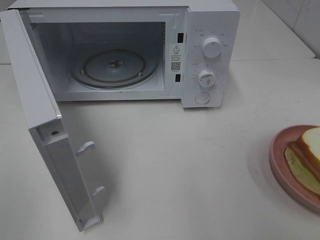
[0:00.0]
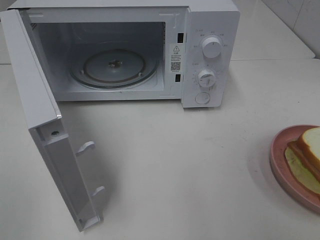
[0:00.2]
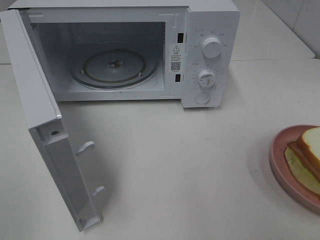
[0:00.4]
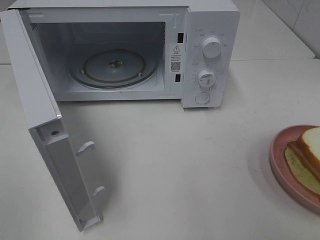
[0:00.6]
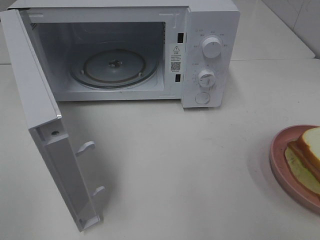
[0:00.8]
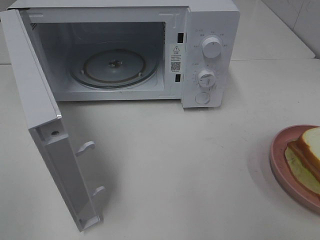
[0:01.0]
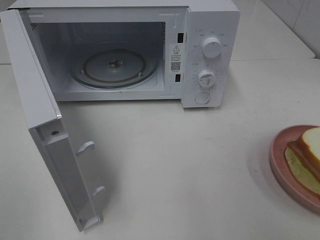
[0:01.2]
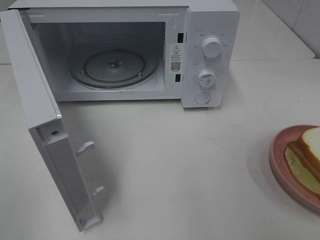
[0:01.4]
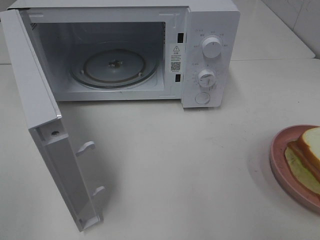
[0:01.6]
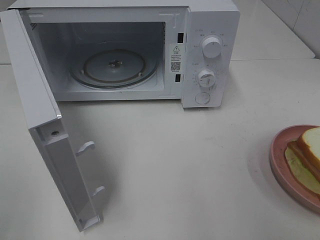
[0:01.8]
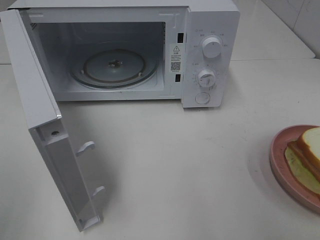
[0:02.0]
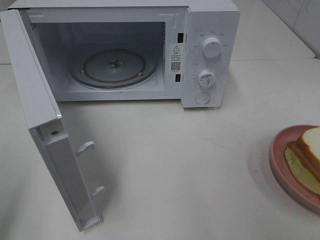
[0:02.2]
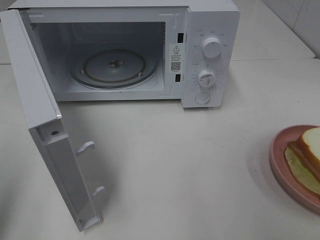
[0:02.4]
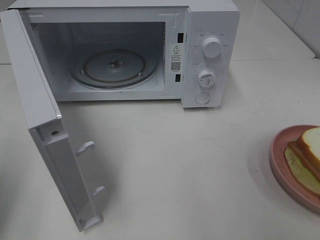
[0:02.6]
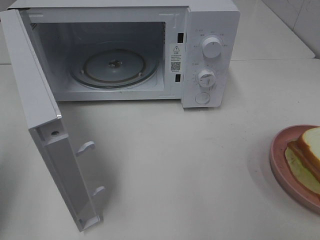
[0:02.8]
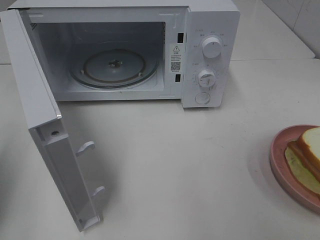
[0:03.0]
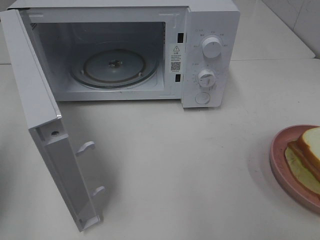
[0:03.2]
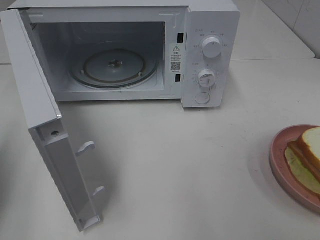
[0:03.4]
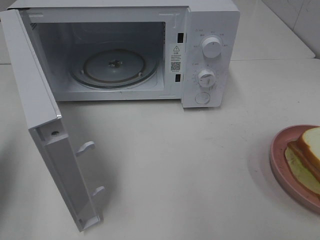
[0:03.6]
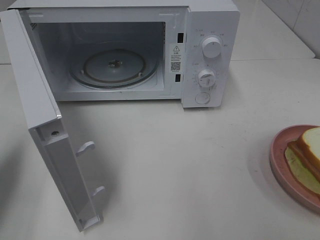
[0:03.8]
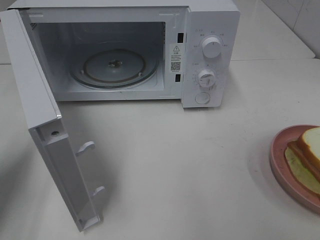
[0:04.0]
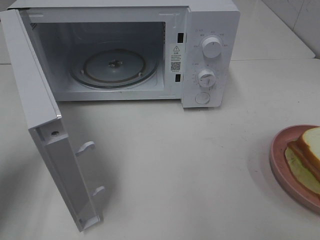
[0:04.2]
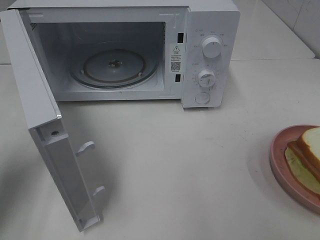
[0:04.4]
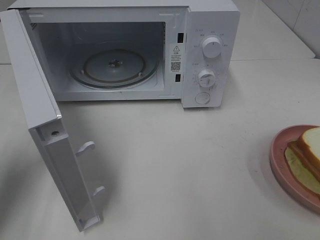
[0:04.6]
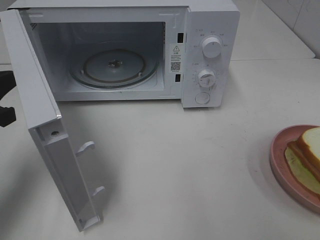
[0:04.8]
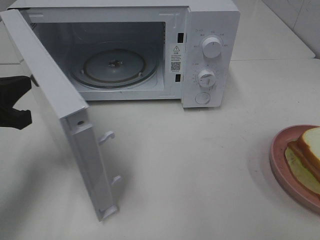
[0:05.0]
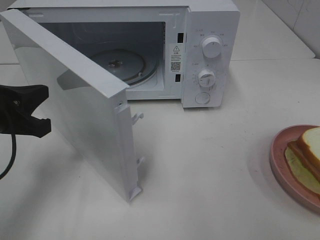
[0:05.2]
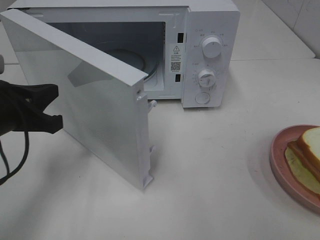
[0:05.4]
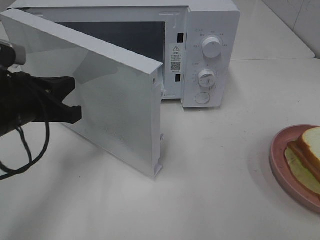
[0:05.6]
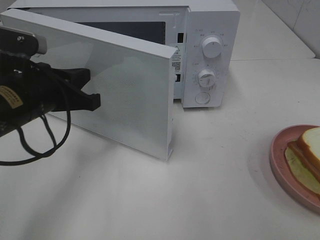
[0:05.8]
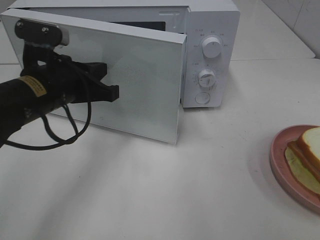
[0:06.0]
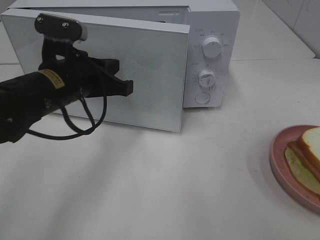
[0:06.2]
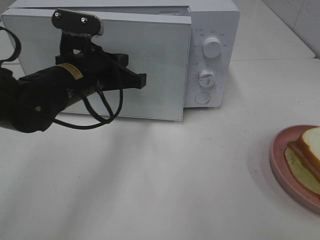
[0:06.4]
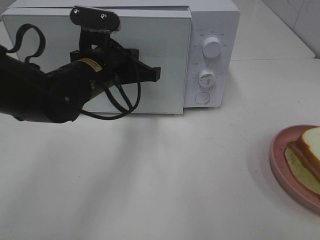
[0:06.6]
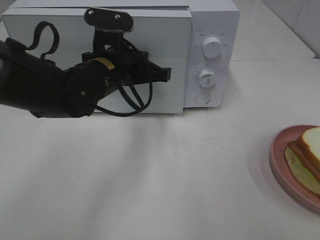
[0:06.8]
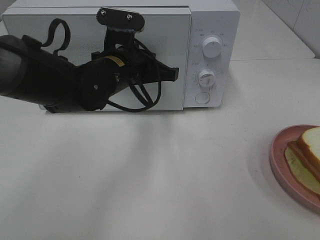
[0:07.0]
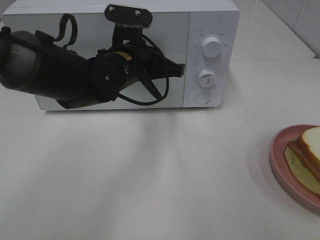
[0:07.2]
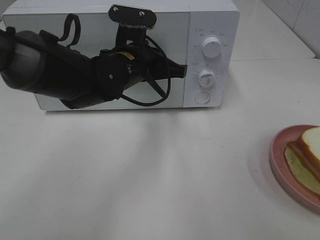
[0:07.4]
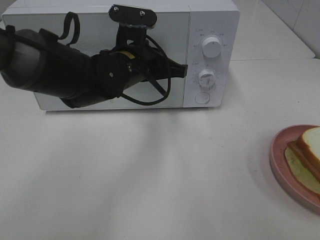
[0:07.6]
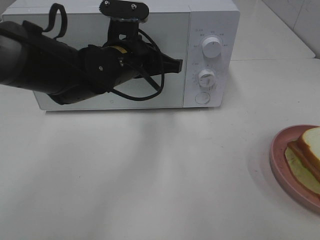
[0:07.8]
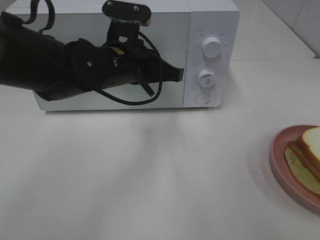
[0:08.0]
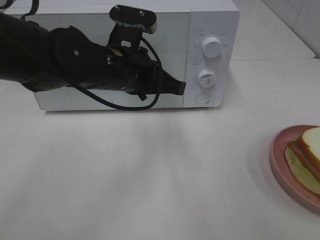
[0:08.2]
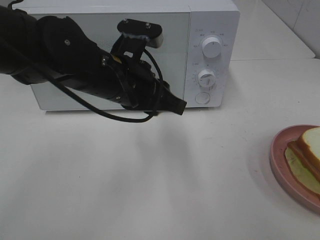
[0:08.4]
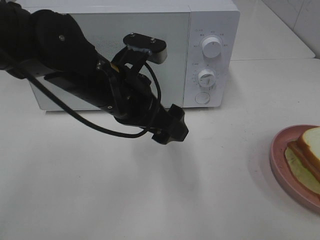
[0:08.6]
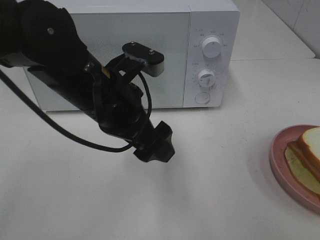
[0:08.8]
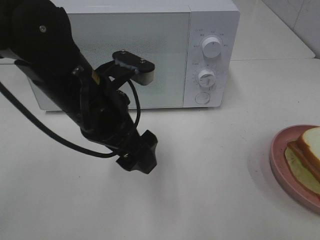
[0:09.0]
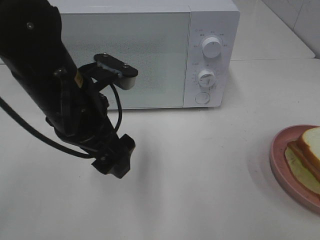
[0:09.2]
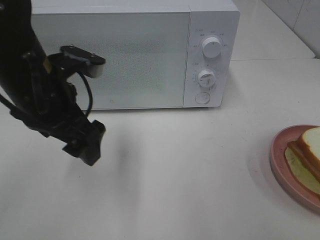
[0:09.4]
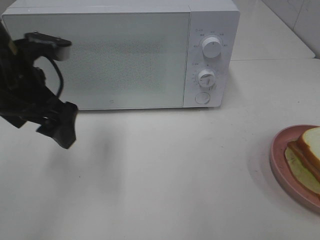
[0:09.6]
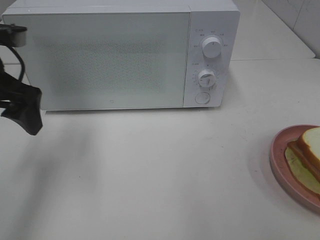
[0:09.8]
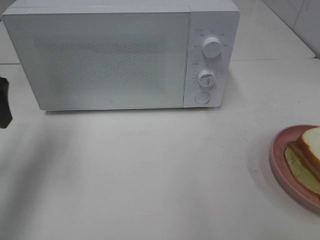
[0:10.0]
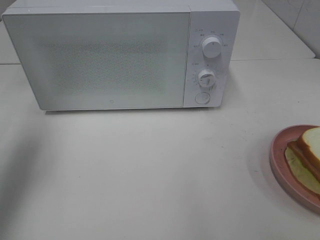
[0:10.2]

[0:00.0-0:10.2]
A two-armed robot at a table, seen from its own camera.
Task of the whole recording: Heat Sandwich.
Step, 0:00.0 to 0:07.8: Left hand: close the microwave door.
0:00.0 to 0:01.4: Neither gripper changes place.
0:01.4 to 0:03.0: The left gripper goes approximately 15 cm forward, and closes up.
0:03.0 to 0:04.4: The left gripper travels downward and forward by roughly 10 cm.
0:04.4 to 0:05.8: The left gripper goes some 15 cm to the right.
0:05.8 to 0:07.2: The left gripper goes some 15 cm to the right and forward.
0:07.2 to 0:08.8: The left gripper shifts roughly 10 cm backward, and opens up.
0:08.8 to 0:10.2: The left gripper shifts some 25 cm to the left.

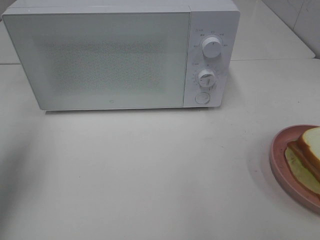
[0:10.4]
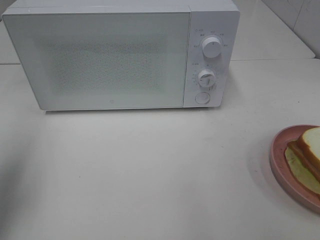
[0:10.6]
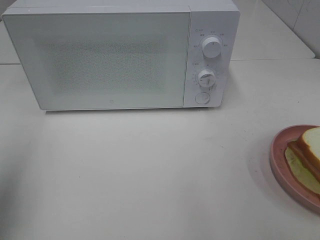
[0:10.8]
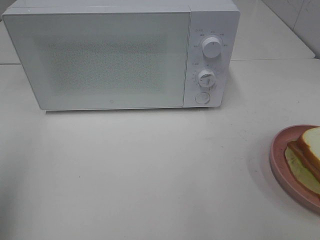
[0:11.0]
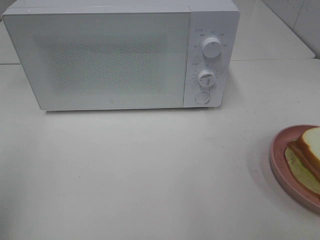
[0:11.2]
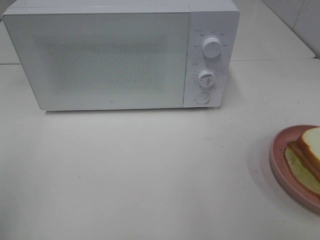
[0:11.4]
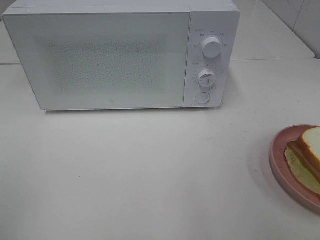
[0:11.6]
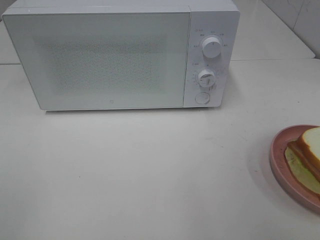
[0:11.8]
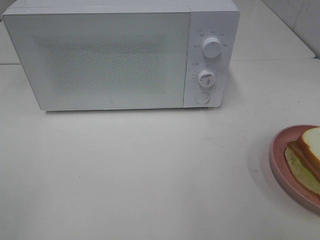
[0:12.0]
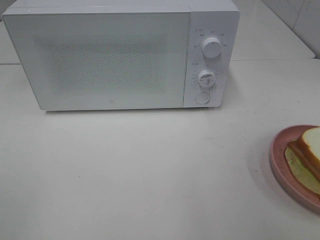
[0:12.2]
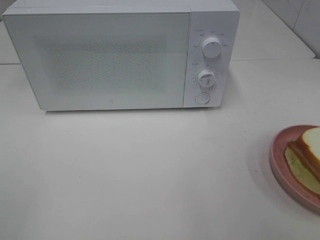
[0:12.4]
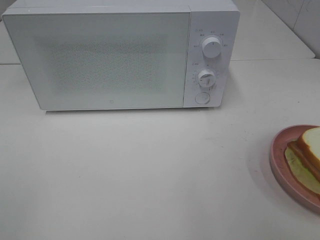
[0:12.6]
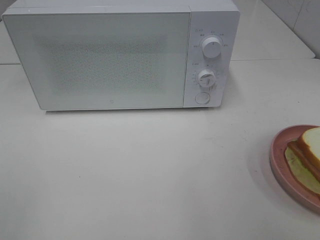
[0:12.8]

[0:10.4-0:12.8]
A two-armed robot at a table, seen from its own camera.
Task of the whole recording: Heat Sandwich.
0:10.4 to 0:11.6: The left gripper shifts about 20 cm backward.

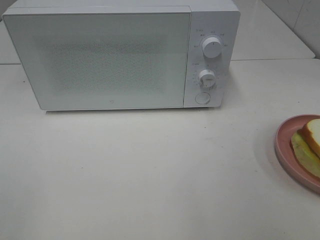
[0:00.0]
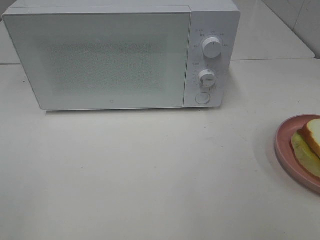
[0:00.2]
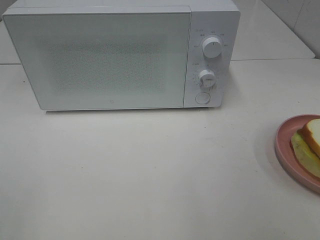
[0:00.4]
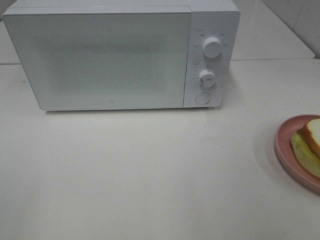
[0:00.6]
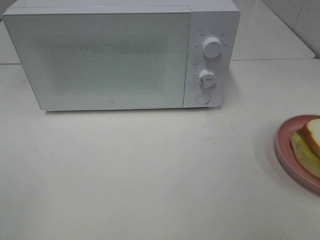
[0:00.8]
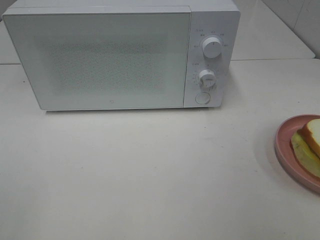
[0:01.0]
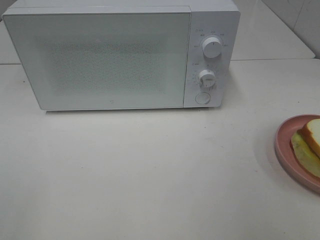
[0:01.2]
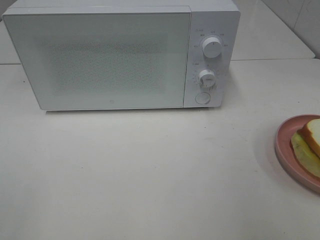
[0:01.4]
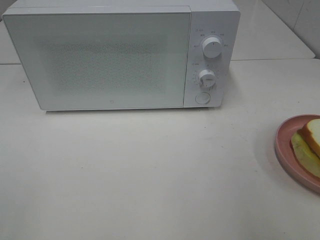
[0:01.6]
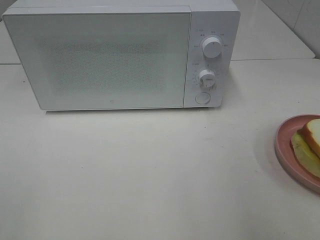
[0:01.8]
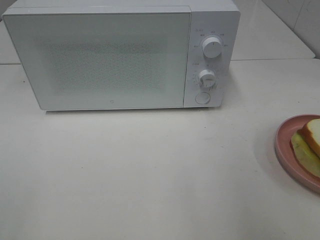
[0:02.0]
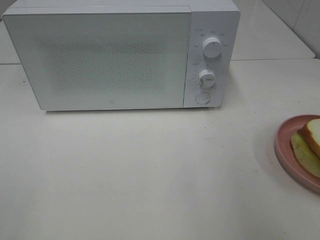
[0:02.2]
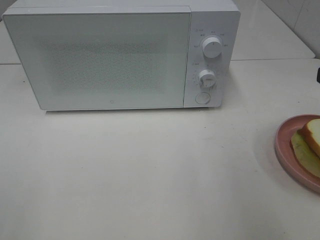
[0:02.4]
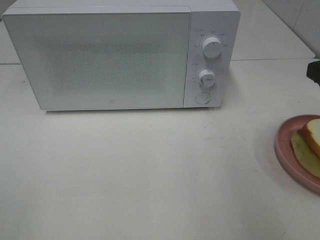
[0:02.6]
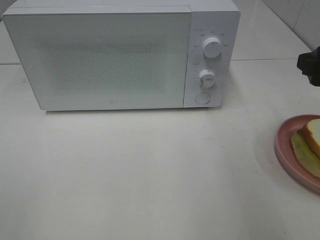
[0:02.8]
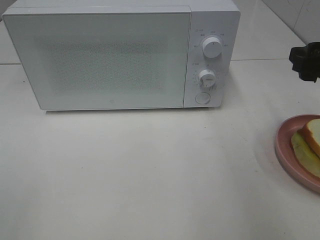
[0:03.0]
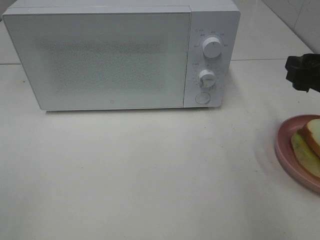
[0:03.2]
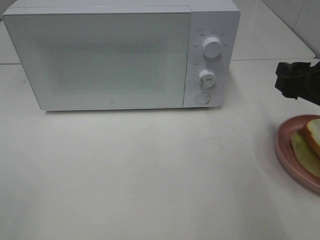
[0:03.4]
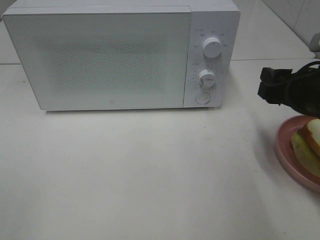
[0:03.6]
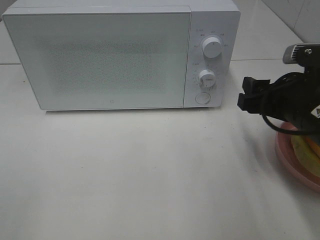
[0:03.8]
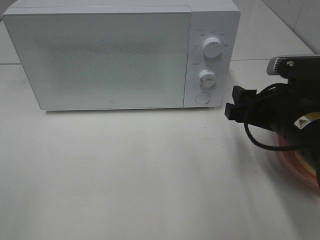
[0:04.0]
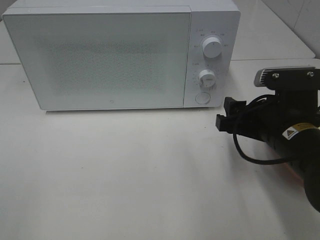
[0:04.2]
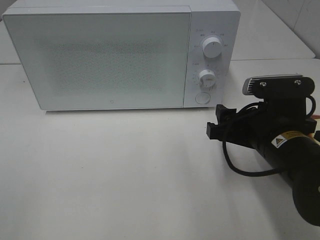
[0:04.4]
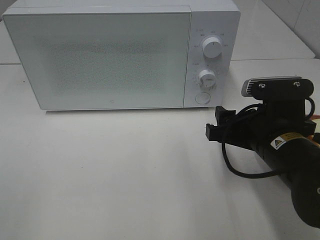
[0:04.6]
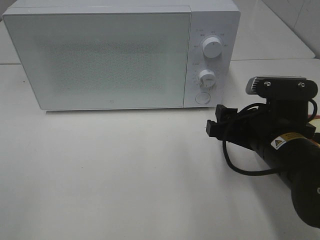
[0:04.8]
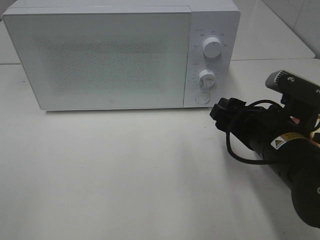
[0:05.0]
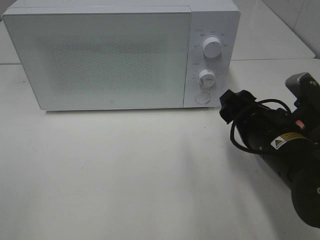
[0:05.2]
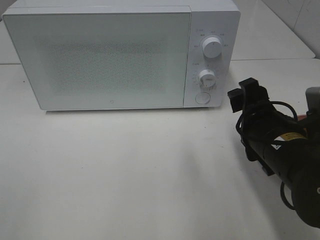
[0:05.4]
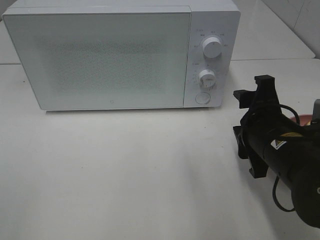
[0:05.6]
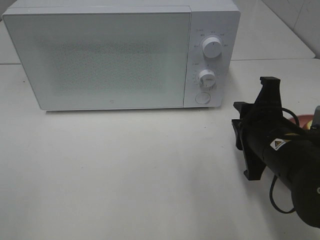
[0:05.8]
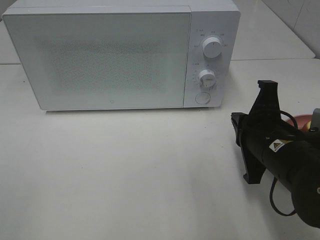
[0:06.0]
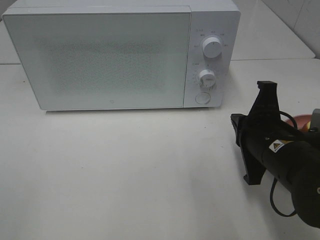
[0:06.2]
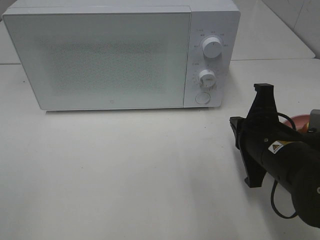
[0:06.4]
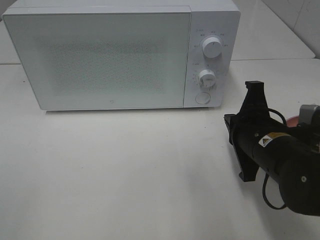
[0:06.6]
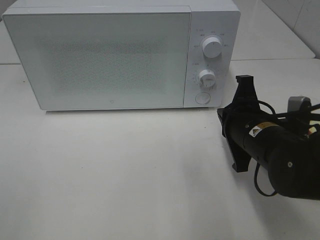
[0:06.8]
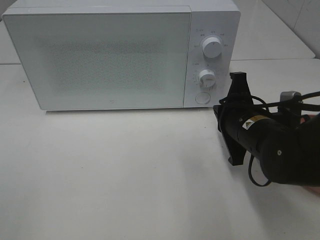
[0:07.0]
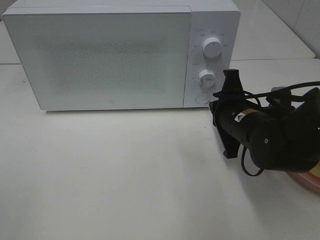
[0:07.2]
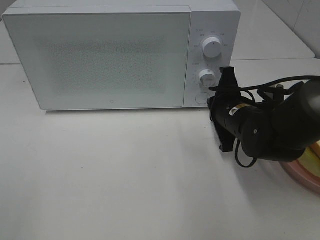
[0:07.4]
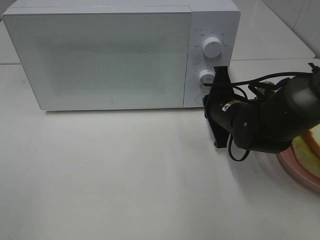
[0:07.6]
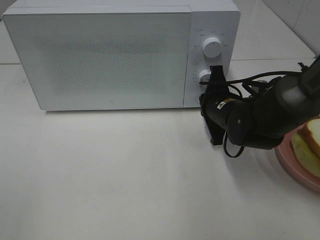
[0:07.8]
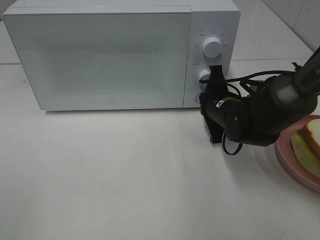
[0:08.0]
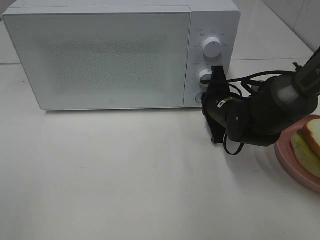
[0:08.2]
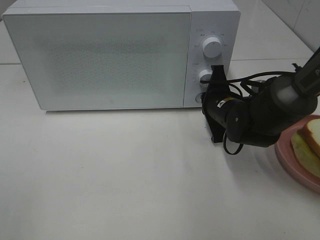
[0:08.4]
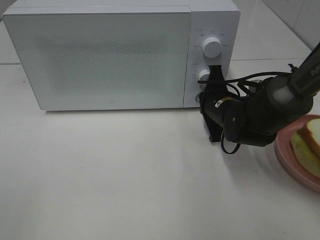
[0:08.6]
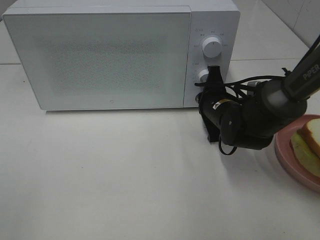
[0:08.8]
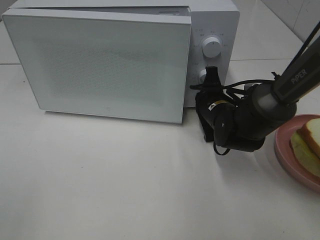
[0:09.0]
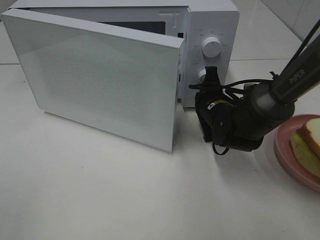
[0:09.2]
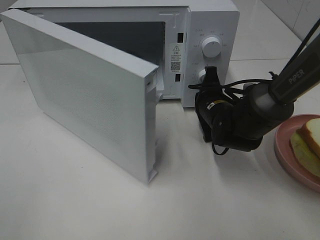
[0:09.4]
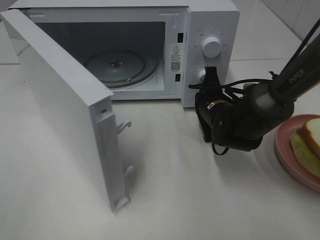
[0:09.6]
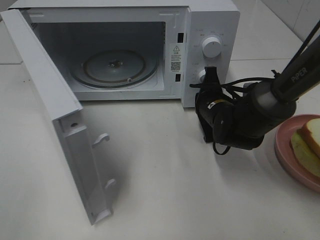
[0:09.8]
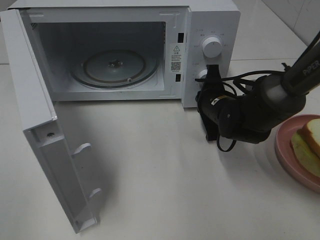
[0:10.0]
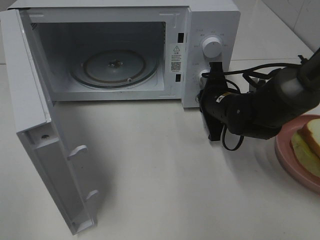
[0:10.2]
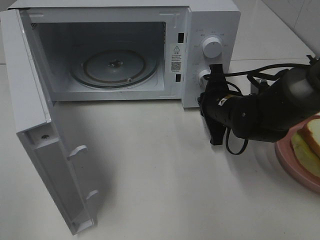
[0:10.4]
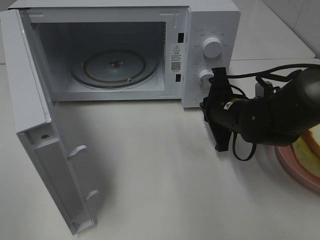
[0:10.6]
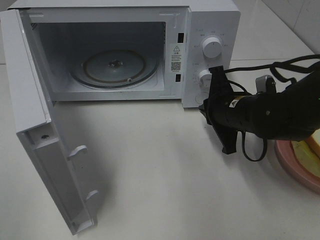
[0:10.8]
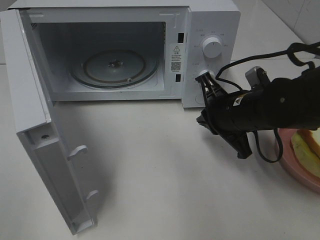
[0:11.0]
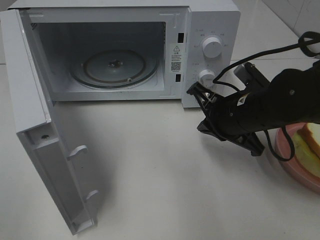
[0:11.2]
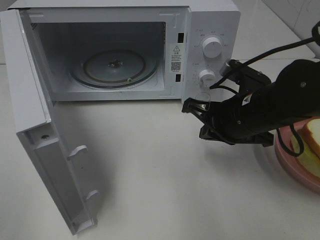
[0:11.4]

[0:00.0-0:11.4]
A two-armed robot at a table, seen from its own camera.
Task of the whole recording: Heat Sandwich.
Step, 0:00.0 to 0:10.4: Right hand: press the switch.
0:01.4 to 0:02.8: The right gripper moves forward, approximately 15 cm.
0:02.8 to 0:04.2: The right gripper travels to the left and downward by some 15 cm.
0:05.6 to 0:07.2: The right gripper travels forward by approximately 10 cm, and closes its fingers.
0:07.2 to 0:08.6: The right gripper shifts roughly 5 cm forward.
0:10.0 to 0:11.4: The right gripper is displaced backward and upward by roughly 10 cm.
